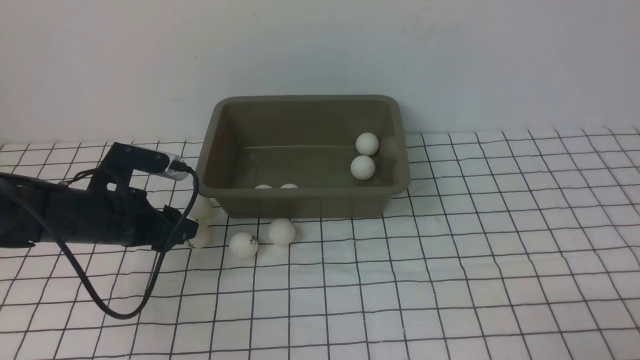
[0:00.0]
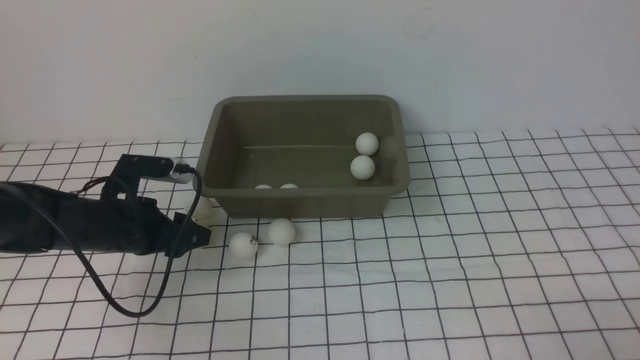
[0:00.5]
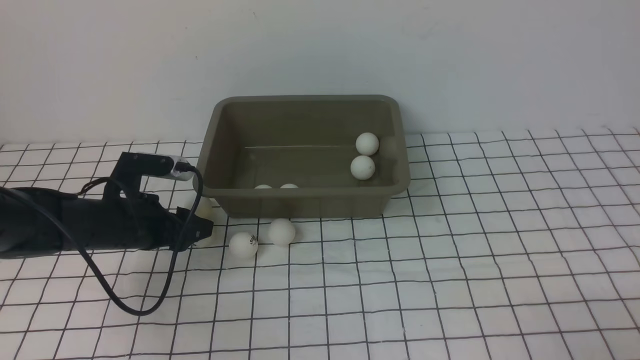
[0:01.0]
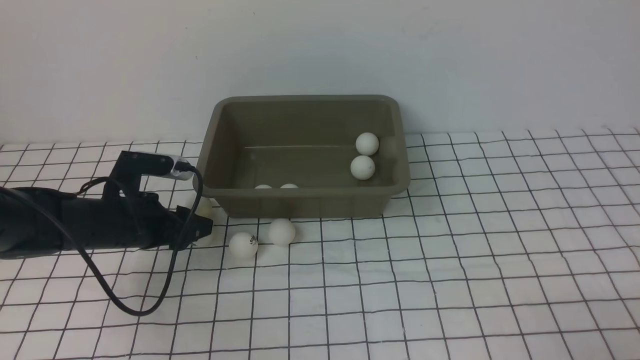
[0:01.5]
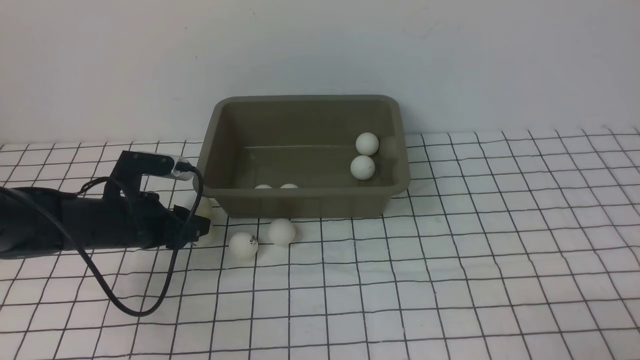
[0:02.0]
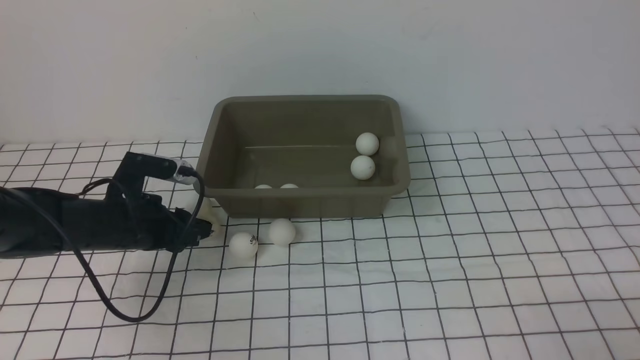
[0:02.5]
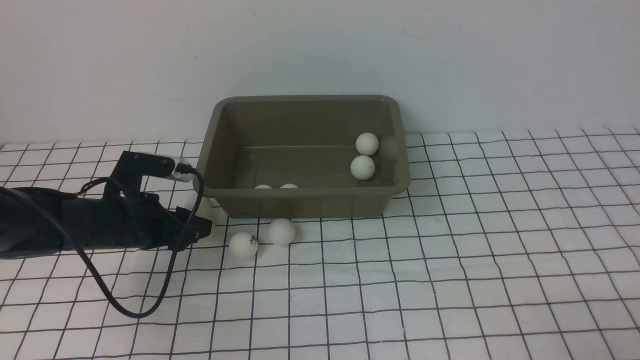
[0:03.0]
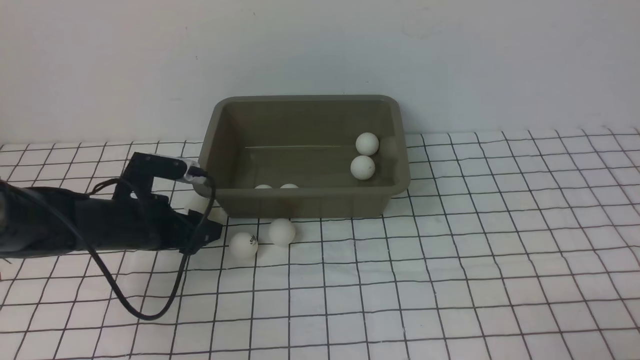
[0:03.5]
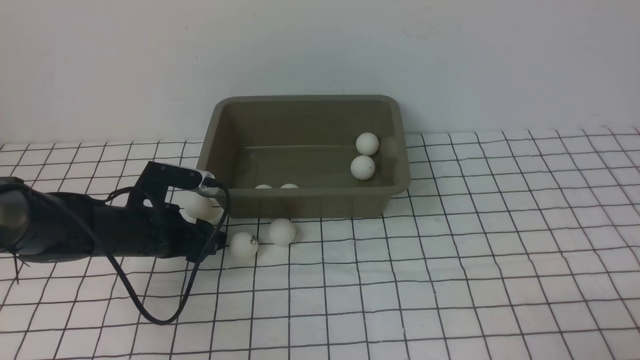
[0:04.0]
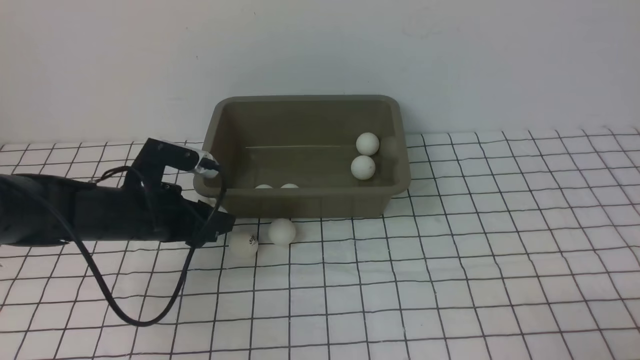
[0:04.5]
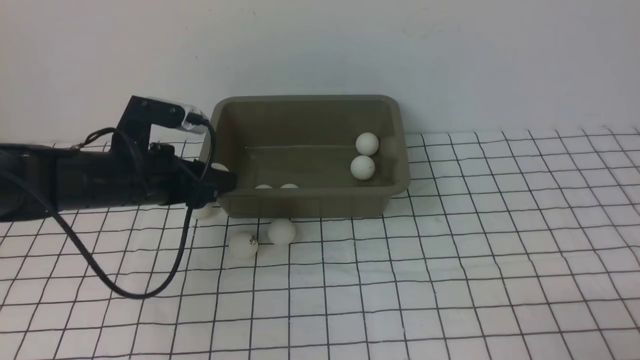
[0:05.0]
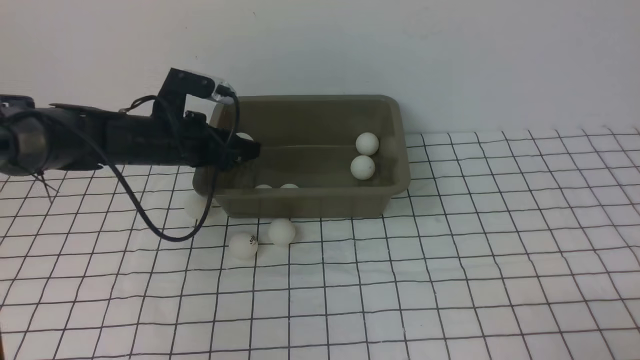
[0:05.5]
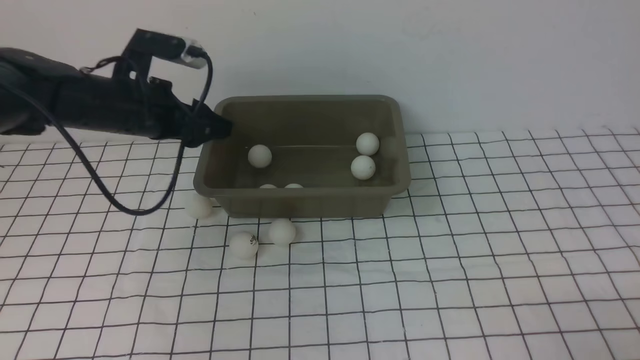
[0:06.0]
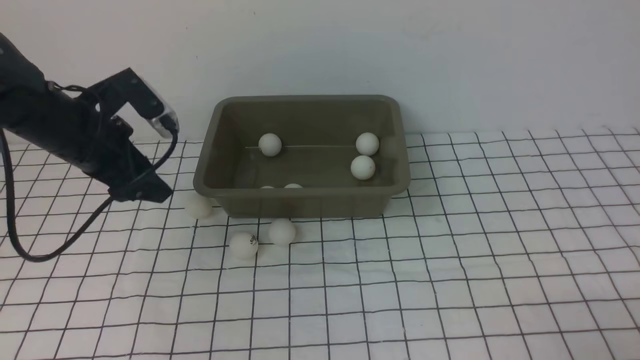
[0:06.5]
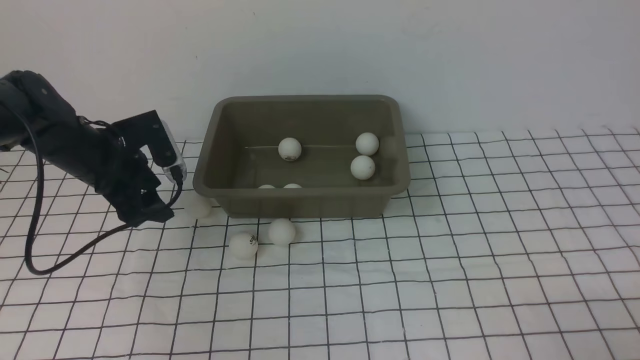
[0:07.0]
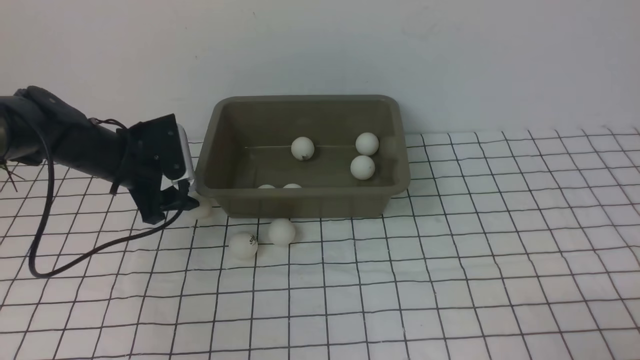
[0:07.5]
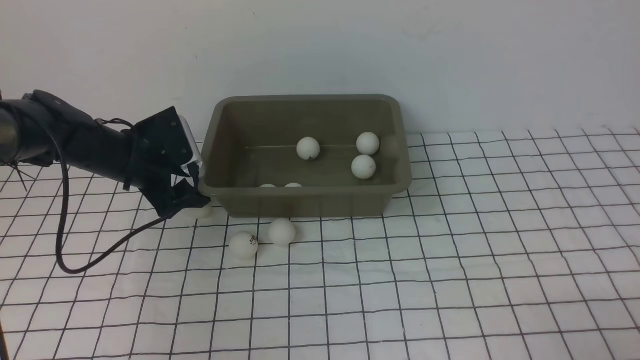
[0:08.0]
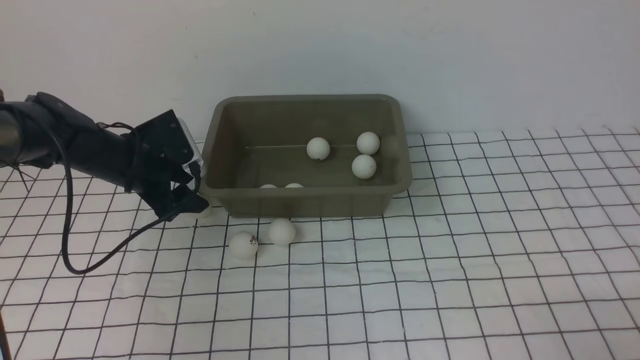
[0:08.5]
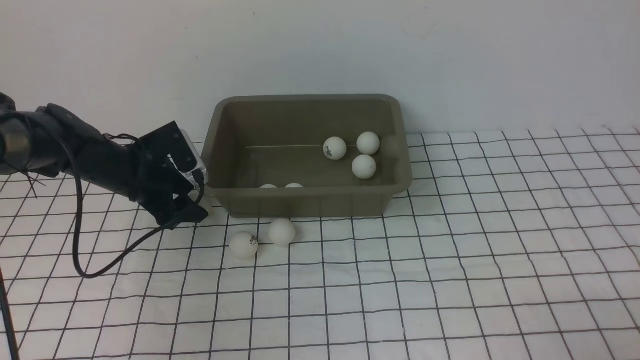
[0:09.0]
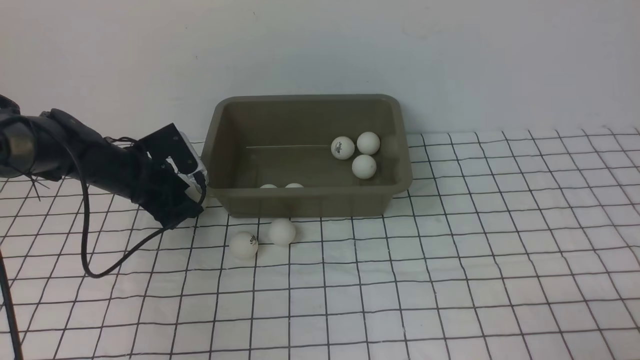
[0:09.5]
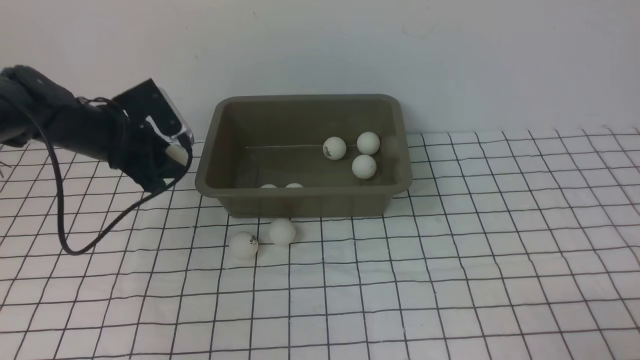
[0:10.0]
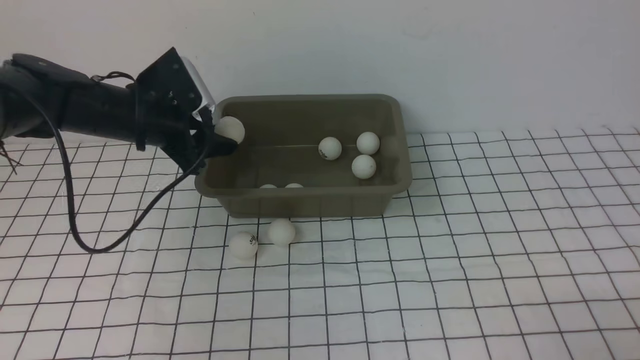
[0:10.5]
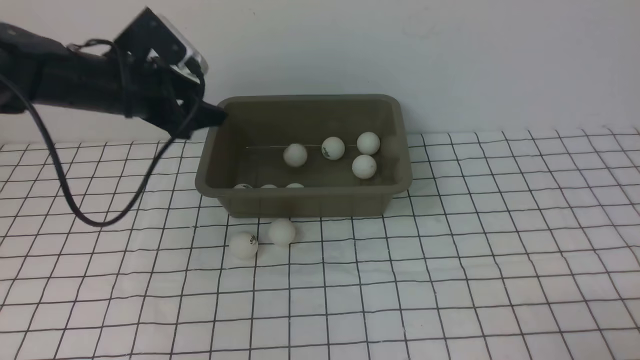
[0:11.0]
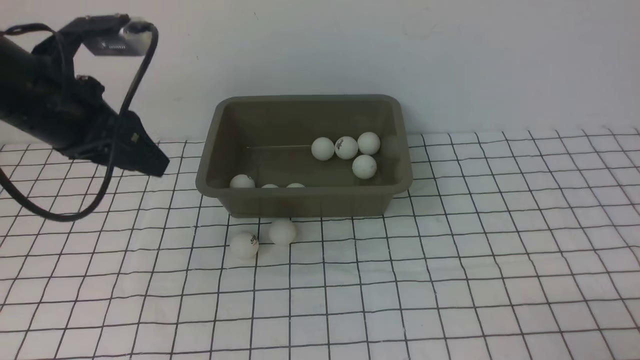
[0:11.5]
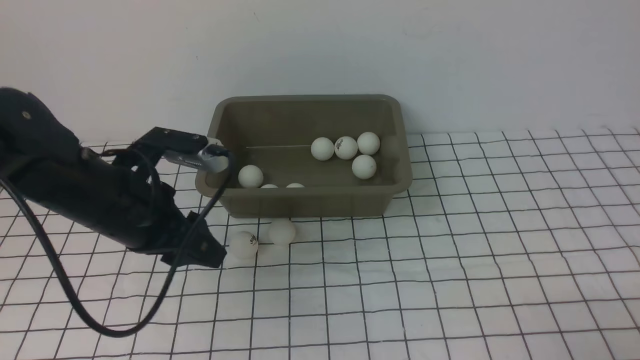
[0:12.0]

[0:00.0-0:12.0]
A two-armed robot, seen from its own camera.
Step, 0:00.0 to 0:04.5: use the left arm to clamp the table tennis ball closest to it.
Step, 0:05.0 to 0:05.5: use the left arm to put the table tennis ball into the box.
Step, 0:06.5 to 0:10.0: use the left arm to clamp the table tennis ball closest to it.
Step, 0:10.5 to 0:11.0: use the left arm to put the table tennis ball into the box.
0:00.0 to 0:02.0: The left gripper closes up.
0:02.0 to 0:04.0: The left gripper opens.
0:04.0 to 0:06.0: The left gripper travels upward and forward by roughly 15 cm.
0:06.0 to 0:08.0: The left gripper heads downward, covering roughly 10 cm.
0:08.0 to 0:10.0: The left gripper closes.
0:10.0 to 0:12.0: The left gripper travels backward and to the right by about 15 cm, and opens, then closes again.

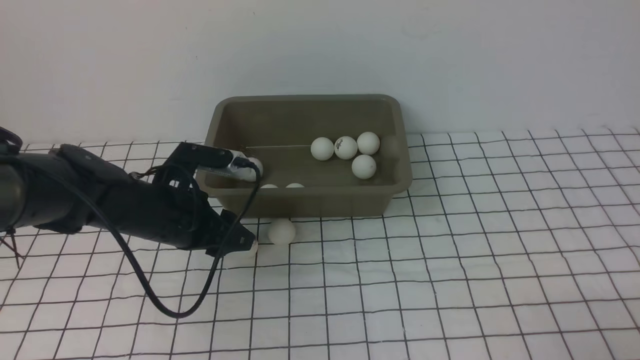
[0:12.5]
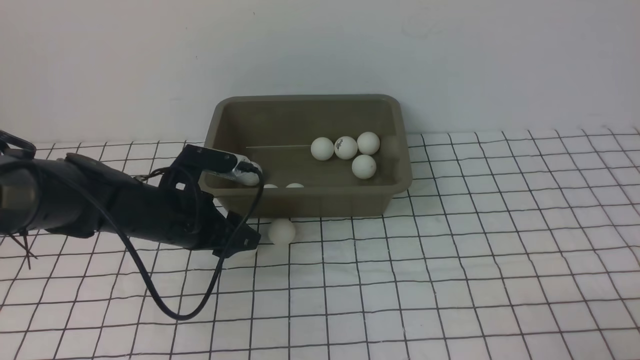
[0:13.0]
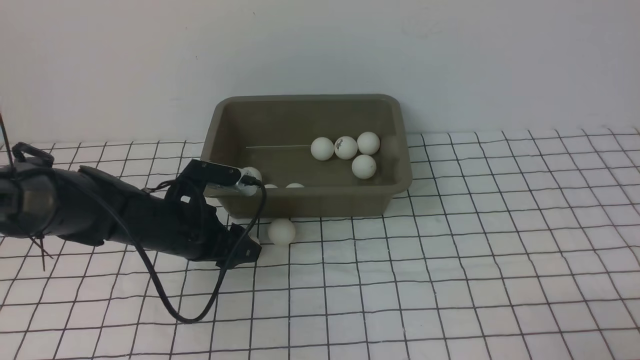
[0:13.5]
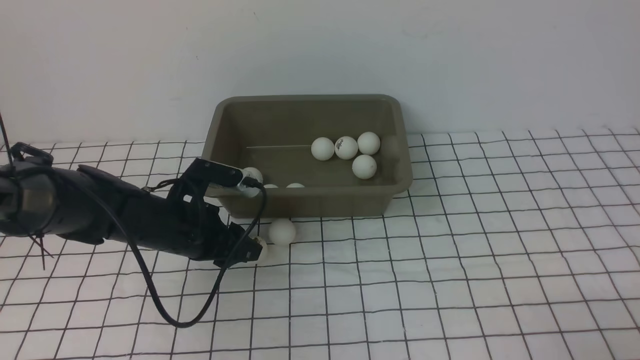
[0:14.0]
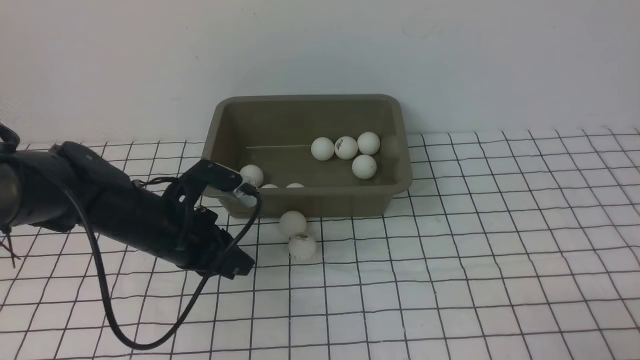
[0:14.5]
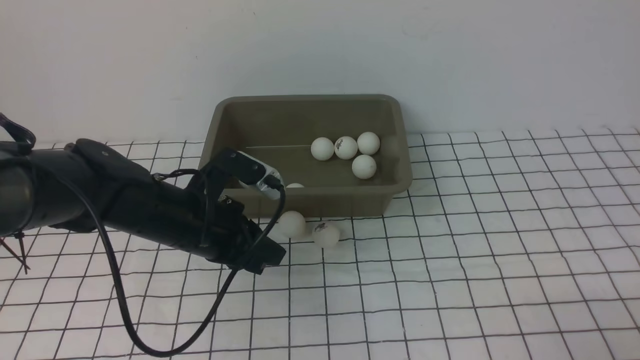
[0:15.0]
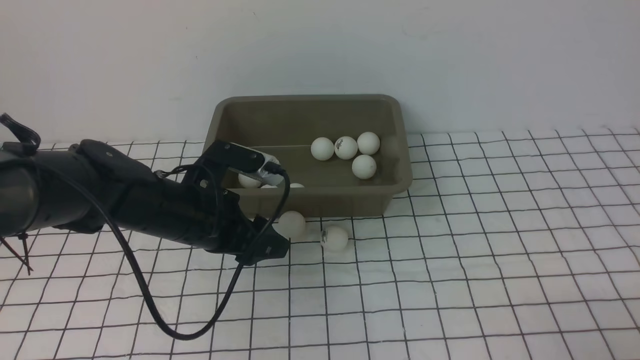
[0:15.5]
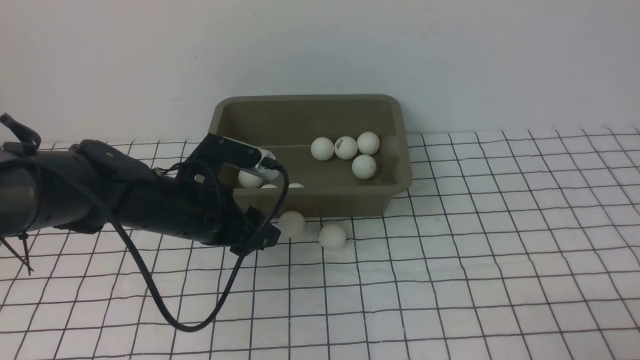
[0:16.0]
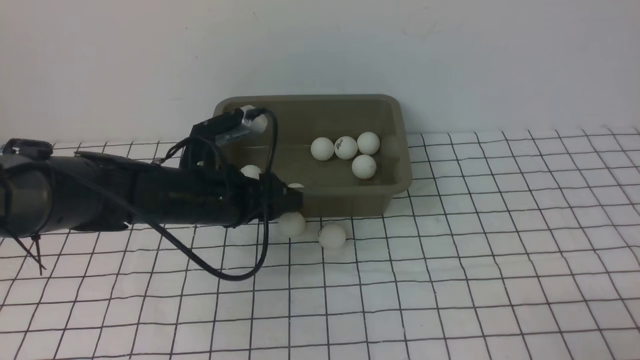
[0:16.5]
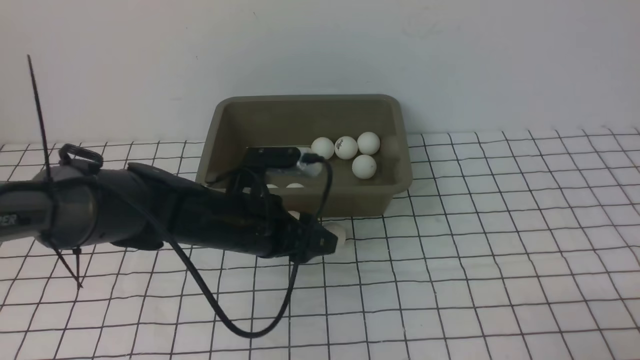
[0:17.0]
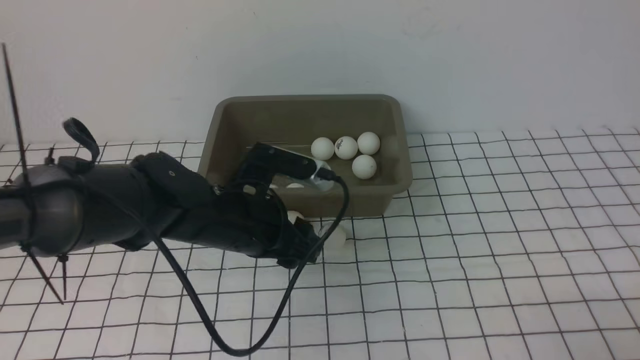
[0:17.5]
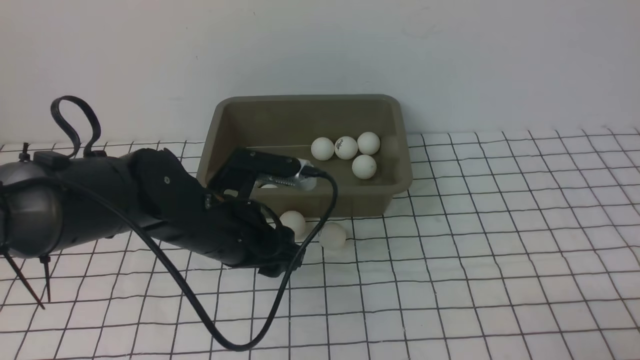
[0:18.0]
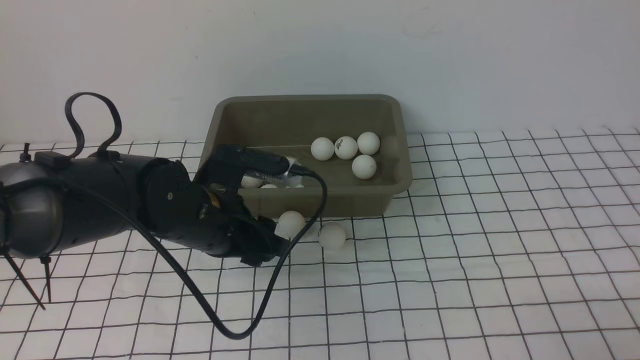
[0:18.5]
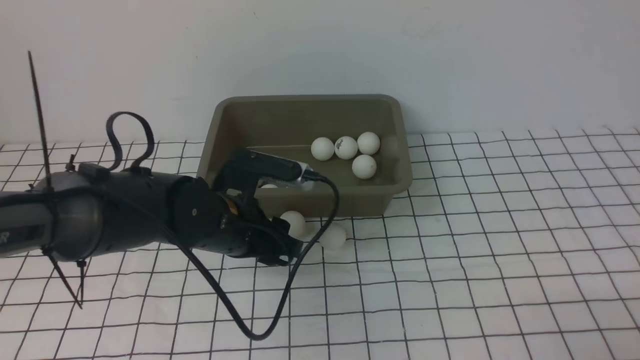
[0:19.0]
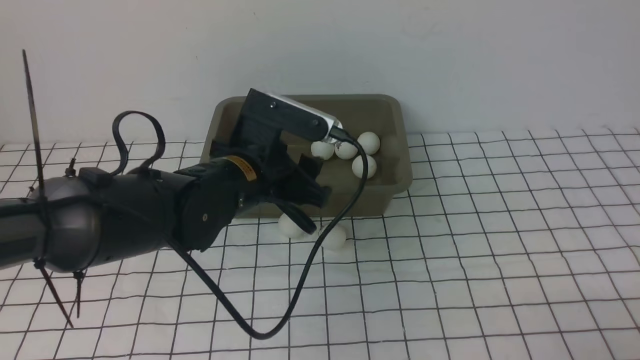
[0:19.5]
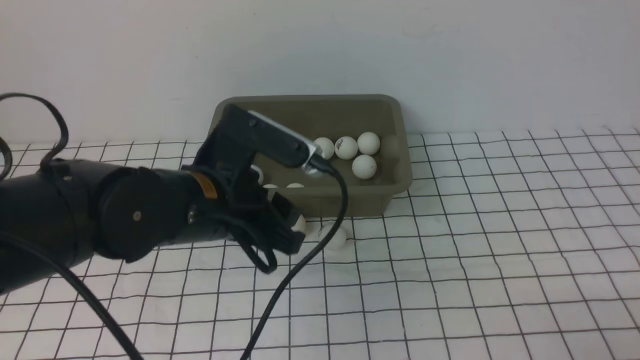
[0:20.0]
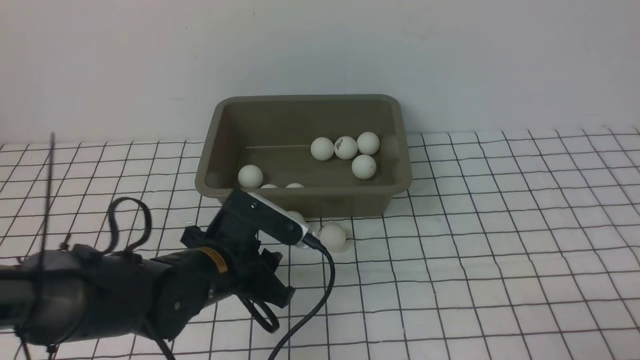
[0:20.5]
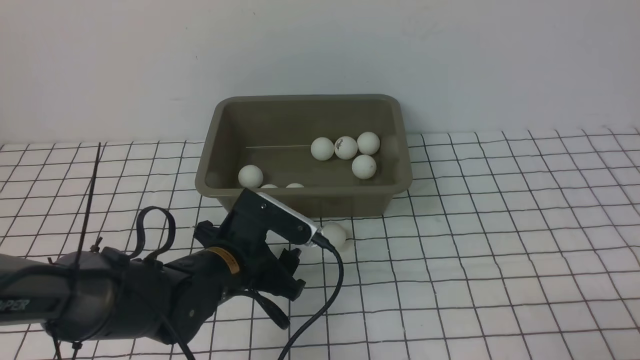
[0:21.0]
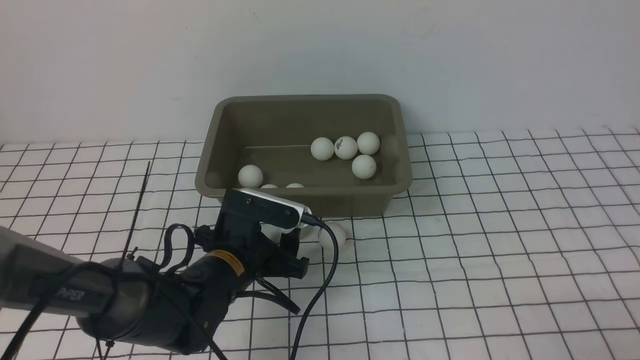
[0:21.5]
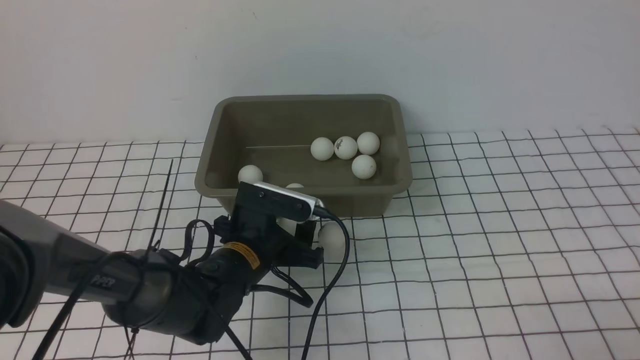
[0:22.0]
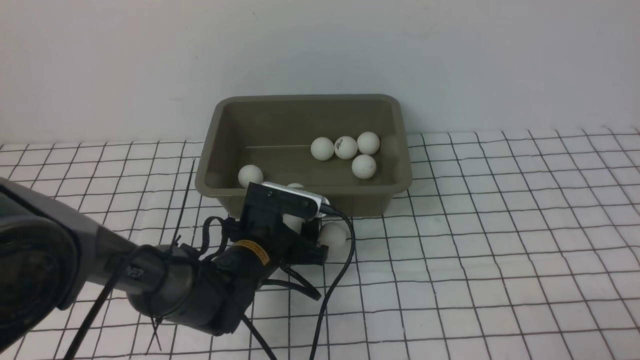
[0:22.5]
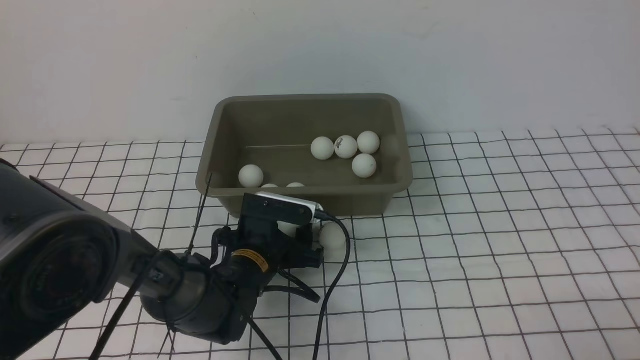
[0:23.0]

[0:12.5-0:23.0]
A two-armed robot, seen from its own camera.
0:12.5 to 0:14.5: The left gripper closes up.
0:14.5 to 0:16.5: The left gripper opens its fingers.
0:19.0 to 0:21.0: The left gripper moves downward, approximately 5 cm, and opens up.
0:21.0 to 0:23.0: The left gripper moves downward, approximately 5 cm.
